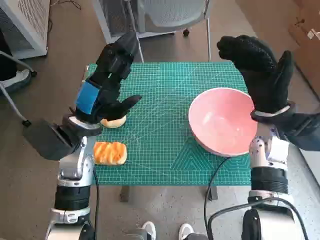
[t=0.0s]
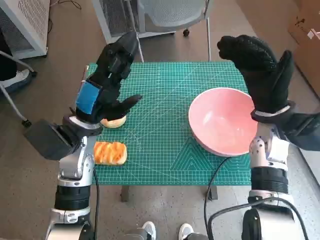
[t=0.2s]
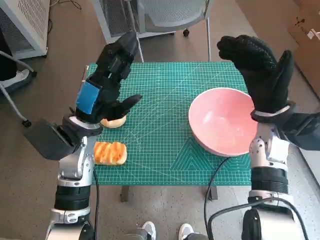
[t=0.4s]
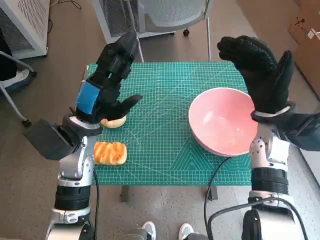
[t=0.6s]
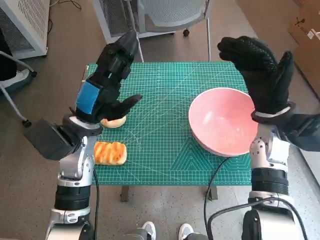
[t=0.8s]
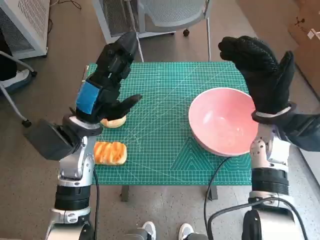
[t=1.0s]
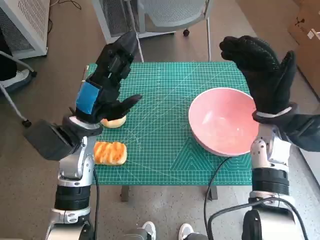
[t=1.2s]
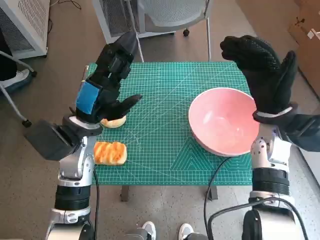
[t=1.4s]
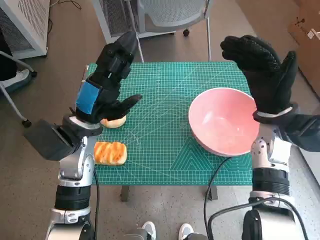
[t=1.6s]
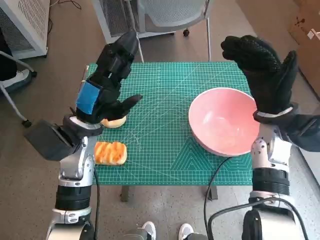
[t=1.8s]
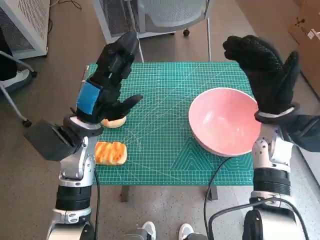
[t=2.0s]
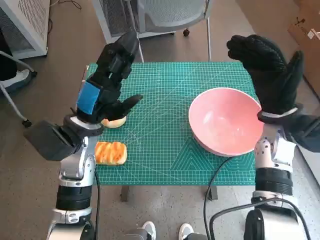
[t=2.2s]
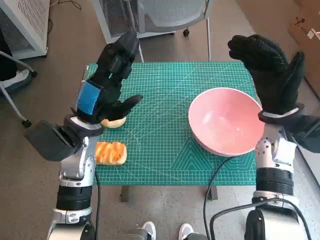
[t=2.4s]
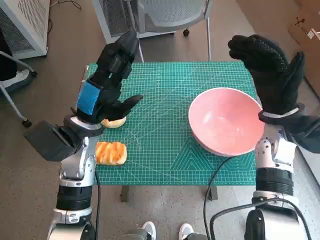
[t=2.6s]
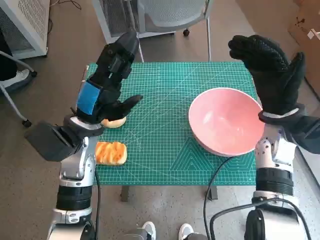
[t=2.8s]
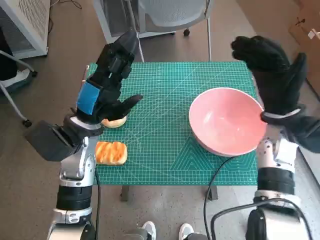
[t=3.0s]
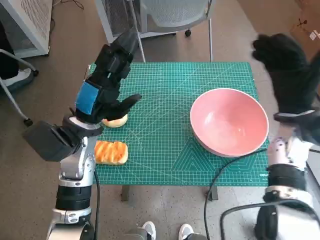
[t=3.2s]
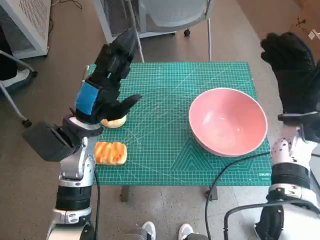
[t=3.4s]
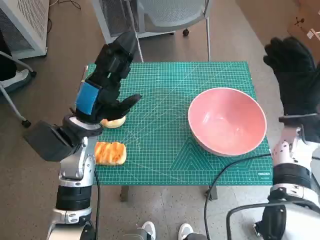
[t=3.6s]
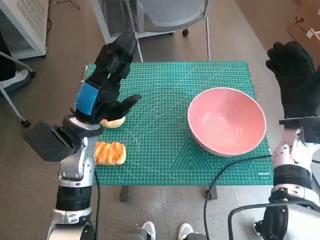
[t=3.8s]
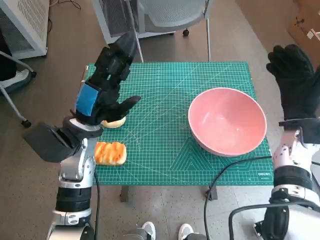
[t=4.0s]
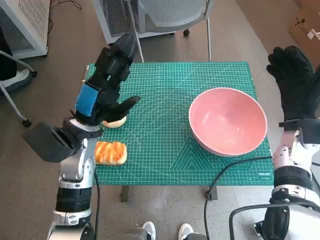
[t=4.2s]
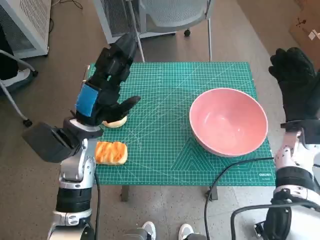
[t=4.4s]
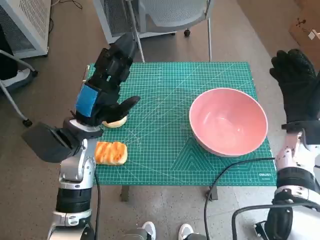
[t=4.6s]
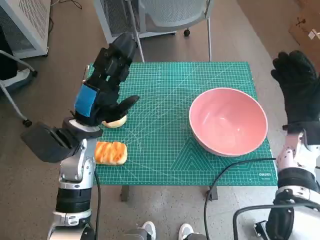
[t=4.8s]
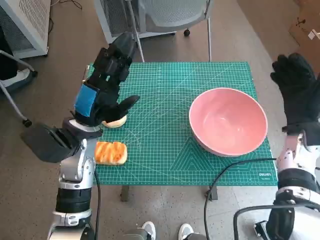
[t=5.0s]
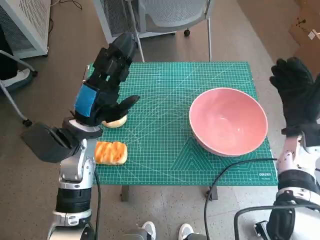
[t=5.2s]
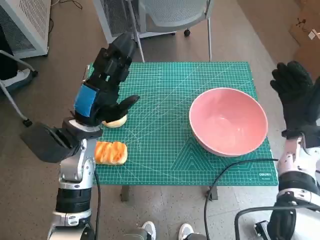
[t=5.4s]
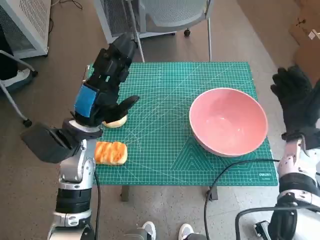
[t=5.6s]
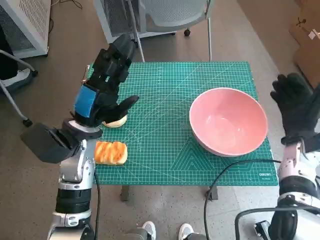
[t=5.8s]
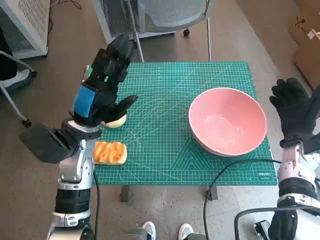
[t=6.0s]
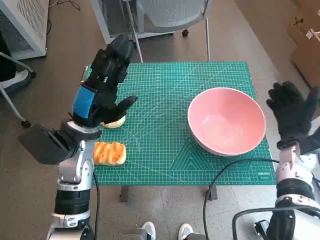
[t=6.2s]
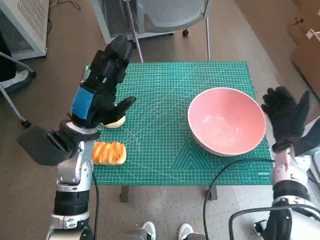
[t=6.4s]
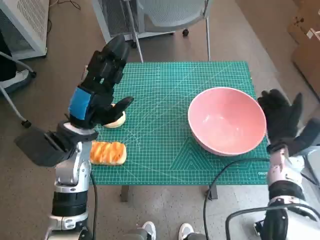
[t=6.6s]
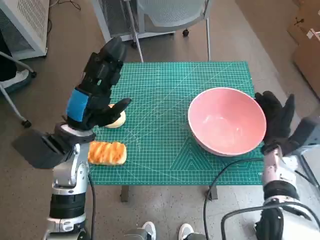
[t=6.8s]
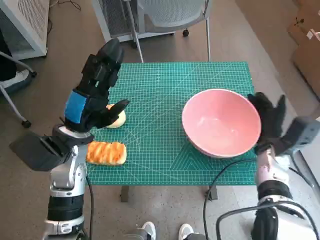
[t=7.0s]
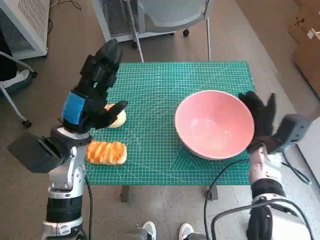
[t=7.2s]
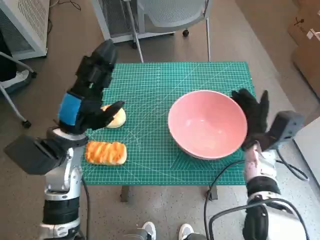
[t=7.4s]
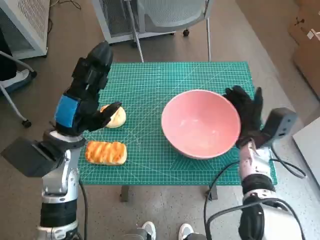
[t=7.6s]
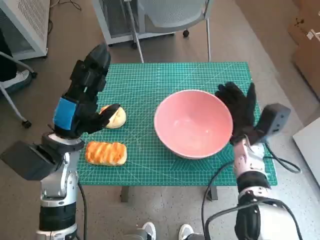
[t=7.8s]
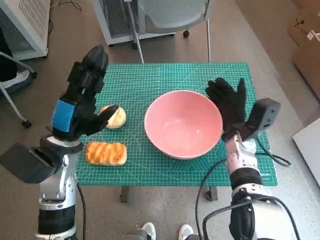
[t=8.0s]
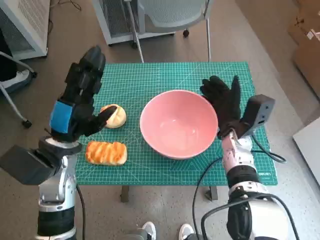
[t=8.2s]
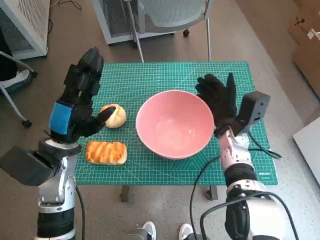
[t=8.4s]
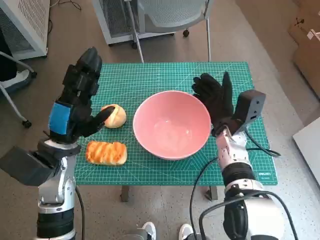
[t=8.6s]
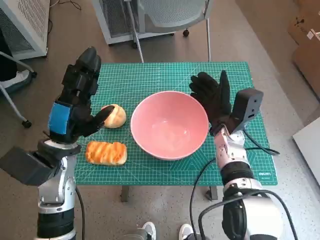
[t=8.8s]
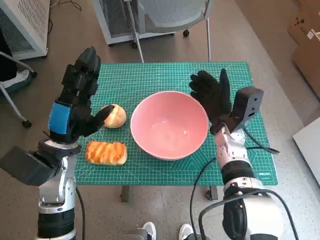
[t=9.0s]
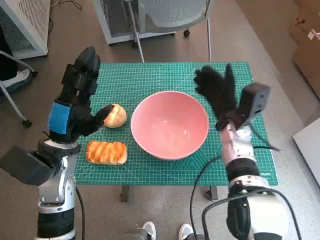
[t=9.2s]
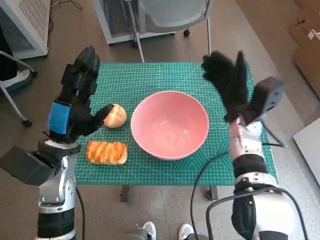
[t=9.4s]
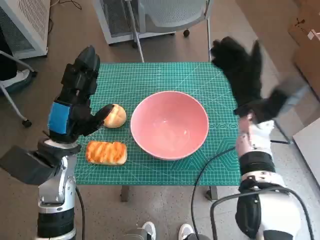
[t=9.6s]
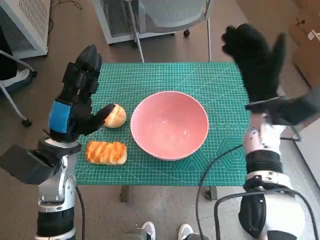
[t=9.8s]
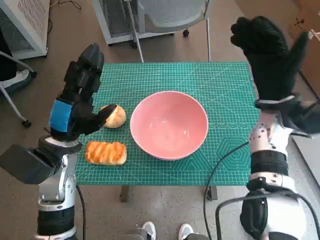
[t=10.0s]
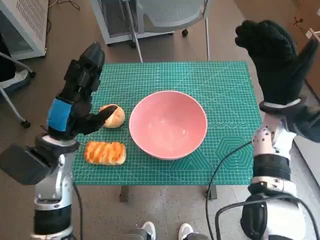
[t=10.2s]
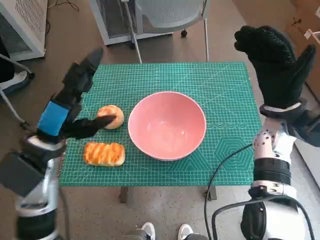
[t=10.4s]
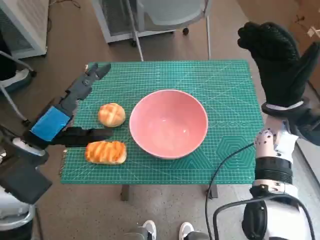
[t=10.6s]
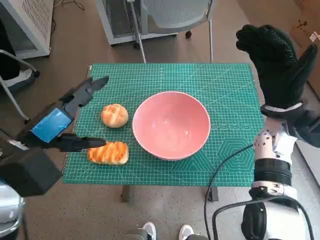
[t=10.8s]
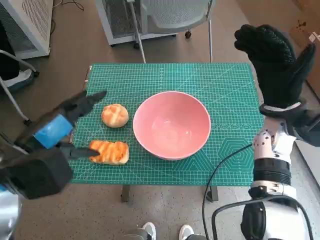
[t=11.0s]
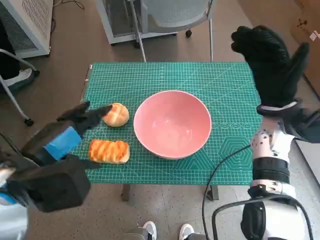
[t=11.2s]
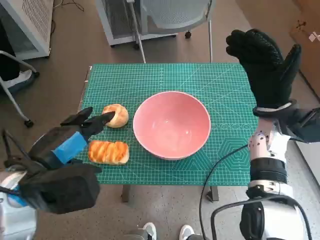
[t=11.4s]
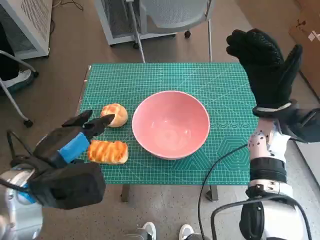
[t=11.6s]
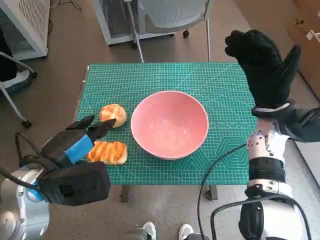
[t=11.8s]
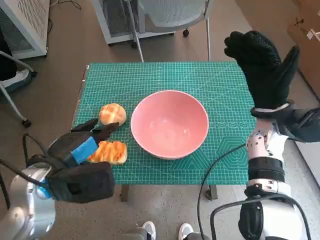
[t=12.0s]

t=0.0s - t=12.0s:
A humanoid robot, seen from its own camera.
Step, t=0.0s - t=9.2s: Move the pink bowl to the center of table with right hand.
t=1.6s - t=3.0s: Both hands stay about where they are.
t=3.0s - t=4.4s: The right hand travels to the right by some 5 cm.
t=6.0s - t=7.6s: The right hand travels to the left by about 10 cm.
t=7.6s - t=9.0s: The right hand shifts about 5 cm to the left.
t=9.0s - t=10.4s: The right hand travels upward and to the right by roughly 10 cm.

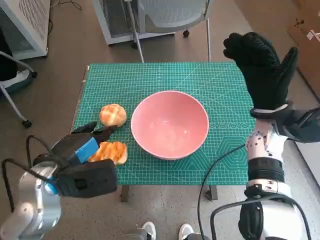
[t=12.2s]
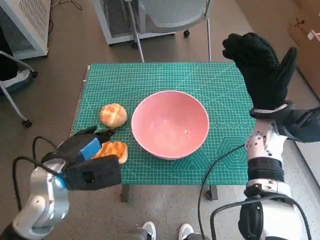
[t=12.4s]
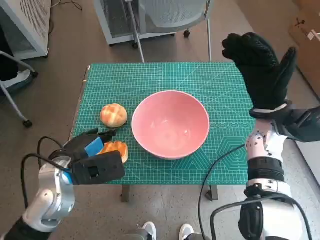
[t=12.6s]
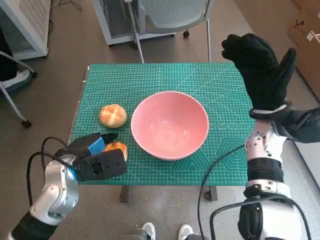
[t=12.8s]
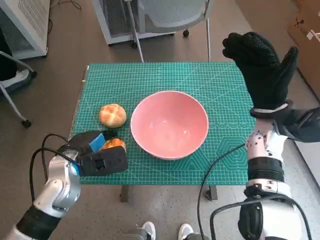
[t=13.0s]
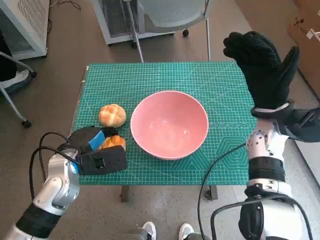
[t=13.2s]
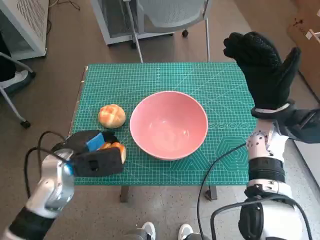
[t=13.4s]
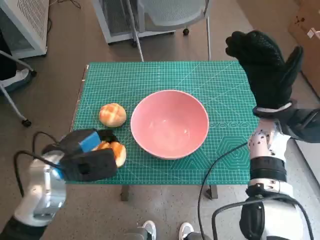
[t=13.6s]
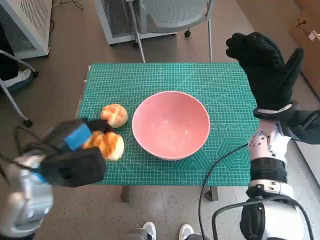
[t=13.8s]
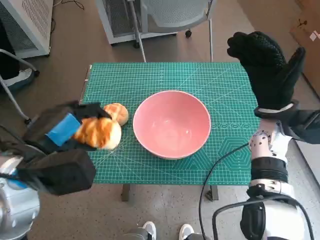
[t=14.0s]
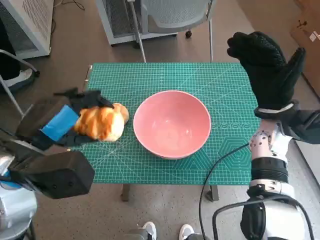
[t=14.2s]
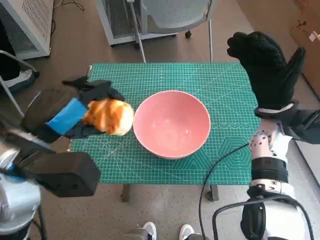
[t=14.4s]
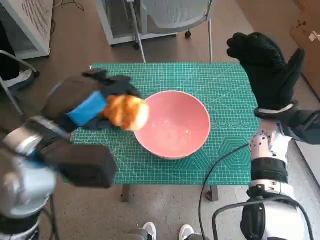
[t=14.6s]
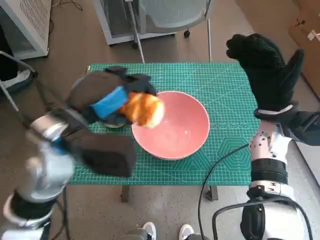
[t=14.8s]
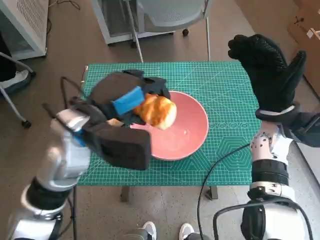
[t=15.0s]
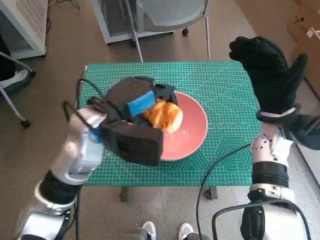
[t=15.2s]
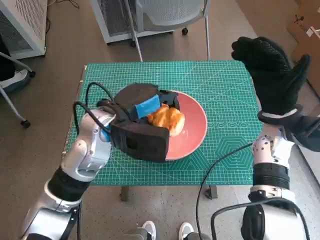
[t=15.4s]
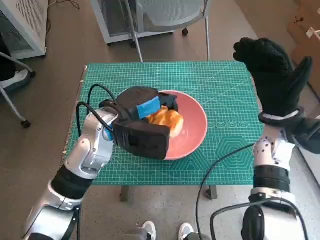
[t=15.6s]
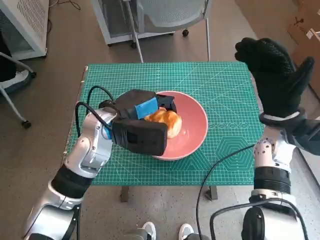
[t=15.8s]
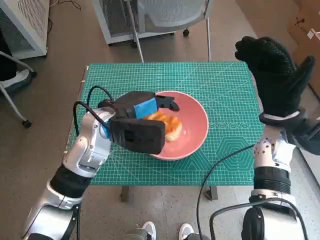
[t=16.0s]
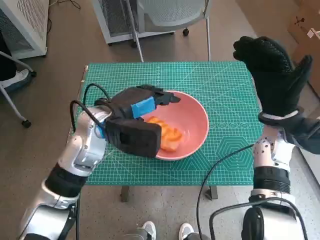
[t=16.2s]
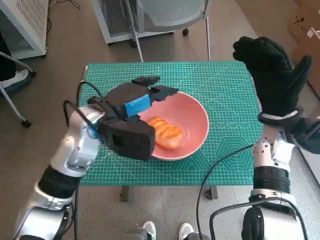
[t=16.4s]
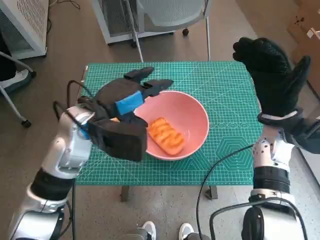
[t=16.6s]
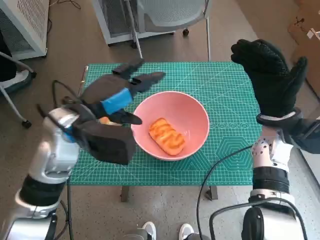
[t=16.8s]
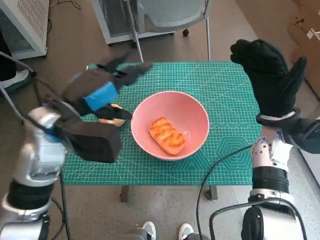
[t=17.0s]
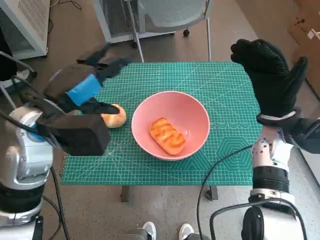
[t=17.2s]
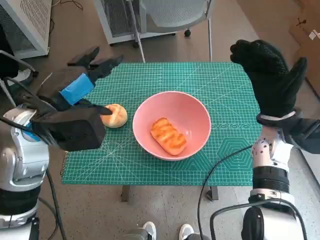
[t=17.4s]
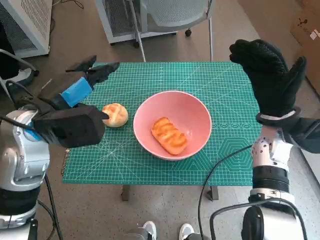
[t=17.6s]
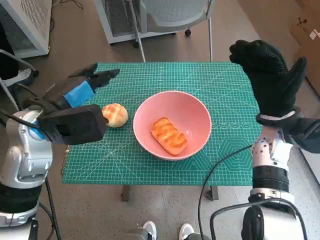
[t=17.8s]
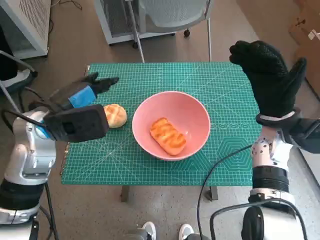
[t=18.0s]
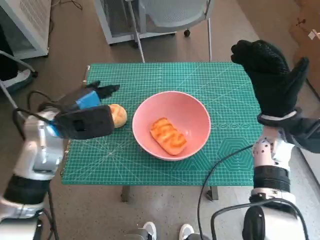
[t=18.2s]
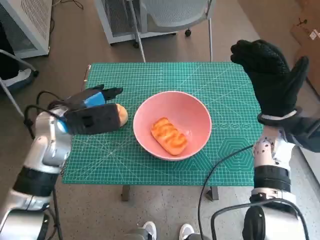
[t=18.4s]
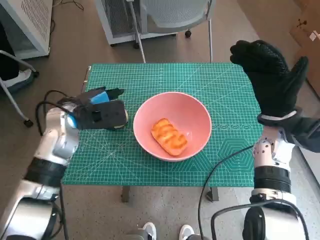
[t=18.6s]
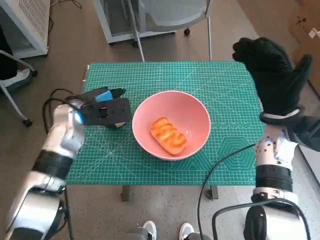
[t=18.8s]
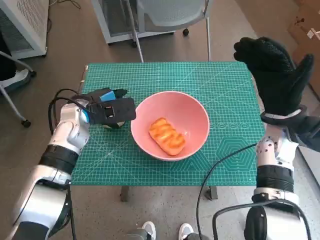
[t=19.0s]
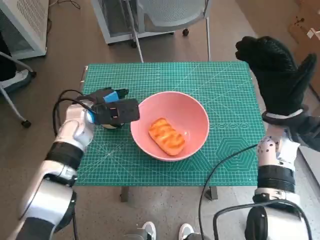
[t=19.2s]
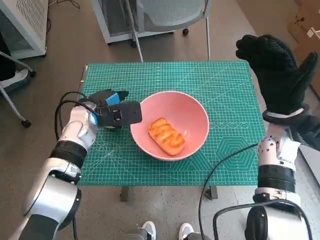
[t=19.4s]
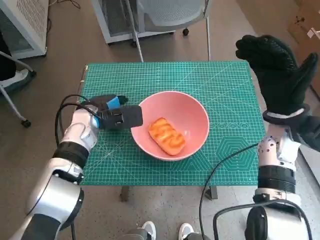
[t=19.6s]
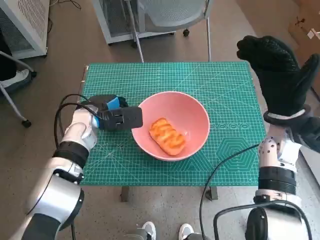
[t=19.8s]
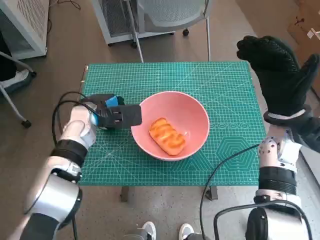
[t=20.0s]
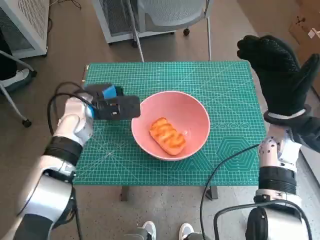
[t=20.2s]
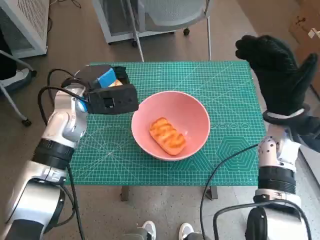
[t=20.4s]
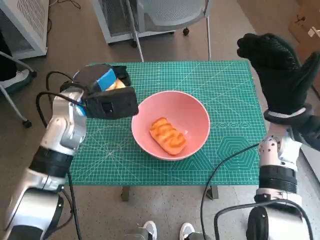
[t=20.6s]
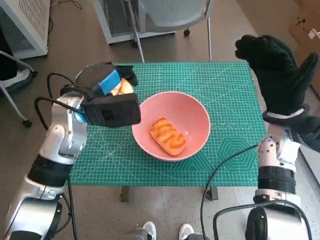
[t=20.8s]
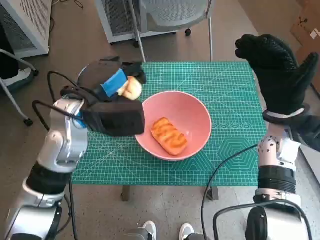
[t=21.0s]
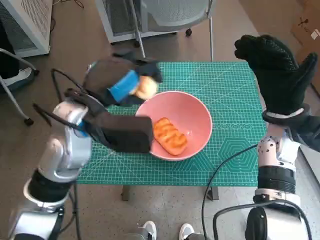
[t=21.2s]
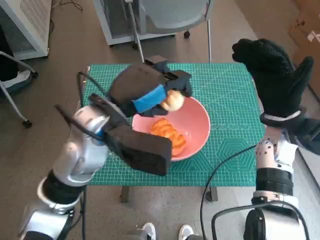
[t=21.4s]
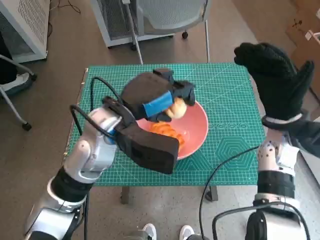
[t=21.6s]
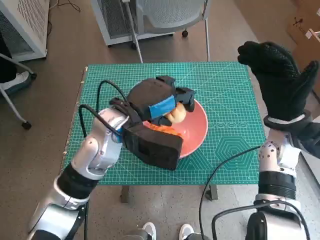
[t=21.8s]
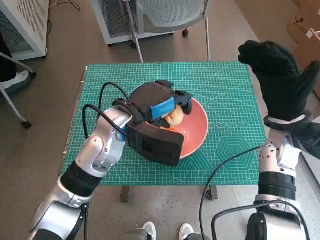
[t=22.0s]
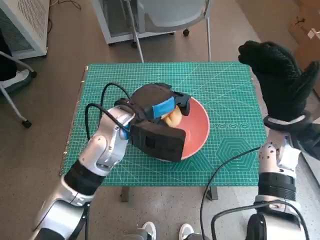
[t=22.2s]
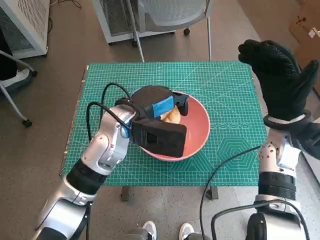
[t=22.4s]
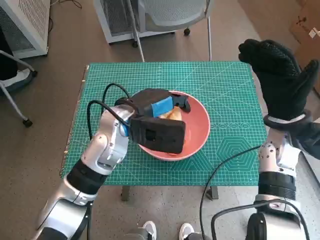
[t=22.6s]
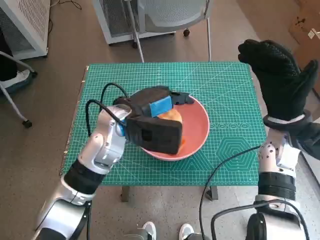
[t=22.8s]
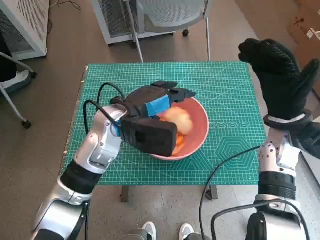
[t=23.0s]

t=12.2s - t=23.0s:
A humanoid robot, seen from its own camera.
Step, t=13.2s - t=16.2s: Place the long bread in pink bowl with left hand.
Step, t=16.4s - t=19.8s: Grasp the round bread with left hand.
Step, t=20.0s - t=23.0s: Place the round bread in pink bowl with left hand.
t=13.8s - t=15.2s: The left hand moves to the right and forward, approximately 10 cm.
t=16.8s - t=18.4s: The left hand shifts approximately 5 cm to the left.
t=18.4s - t=20.0s: The left hand goes roughly 10 cm downward and forward.
t=20.0s - t=21.4s: The left hand moves upward, backward and to the right, approximately 15 cm.
t=21.4s - t=23.0s: The left hand heads downward, covering some 5 cm.
